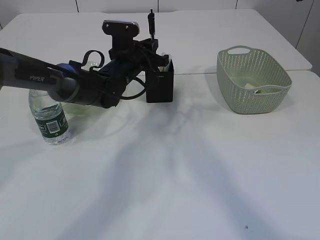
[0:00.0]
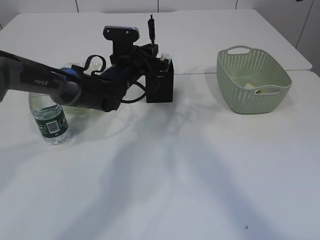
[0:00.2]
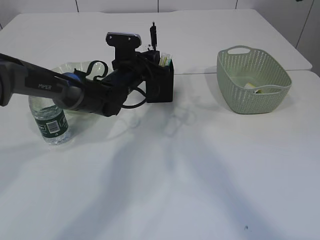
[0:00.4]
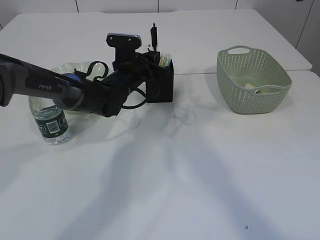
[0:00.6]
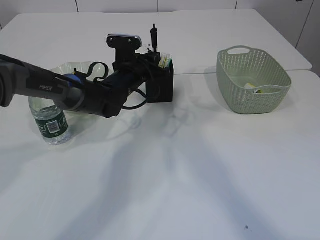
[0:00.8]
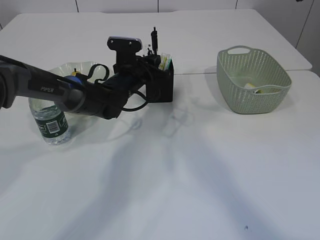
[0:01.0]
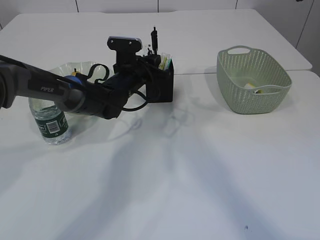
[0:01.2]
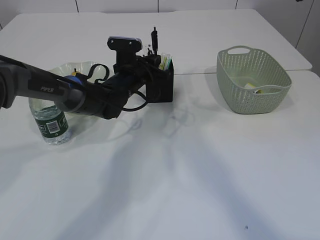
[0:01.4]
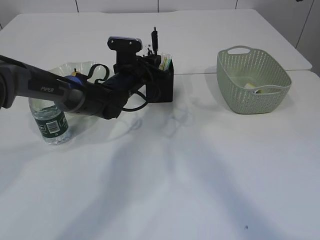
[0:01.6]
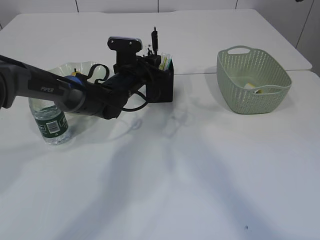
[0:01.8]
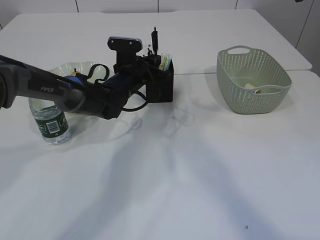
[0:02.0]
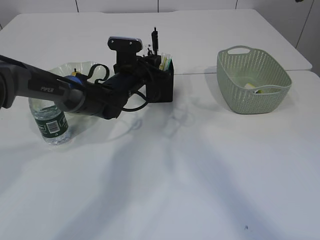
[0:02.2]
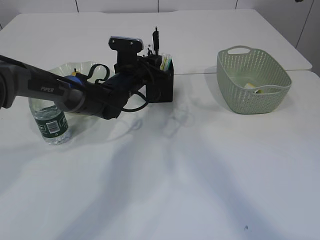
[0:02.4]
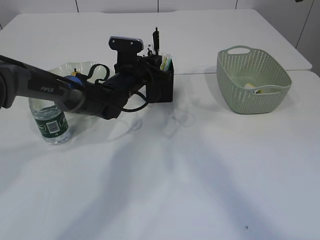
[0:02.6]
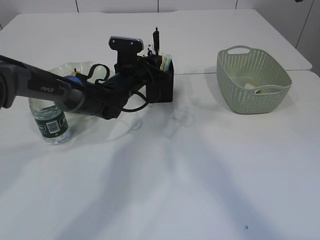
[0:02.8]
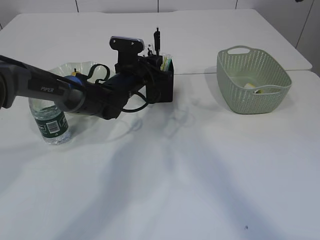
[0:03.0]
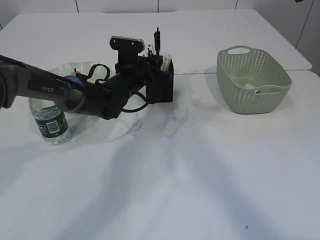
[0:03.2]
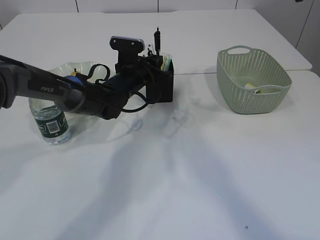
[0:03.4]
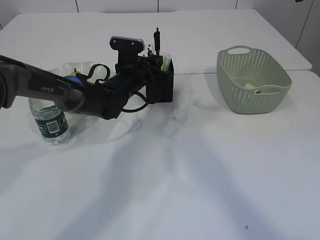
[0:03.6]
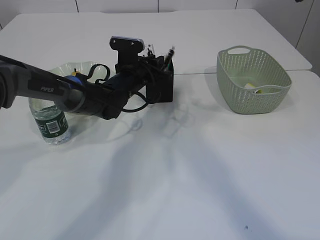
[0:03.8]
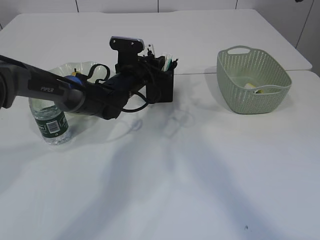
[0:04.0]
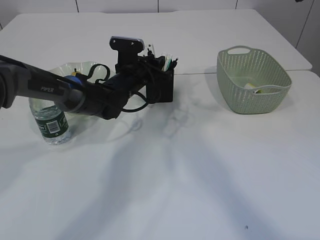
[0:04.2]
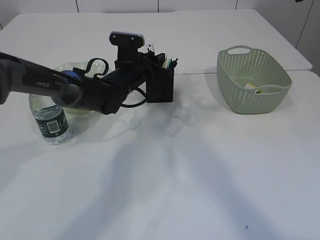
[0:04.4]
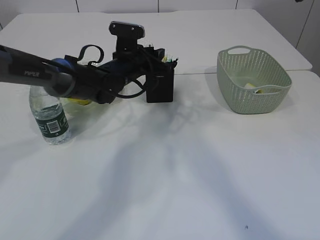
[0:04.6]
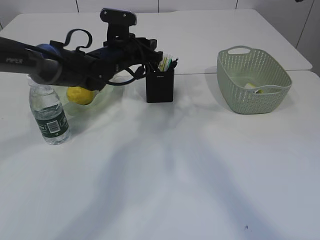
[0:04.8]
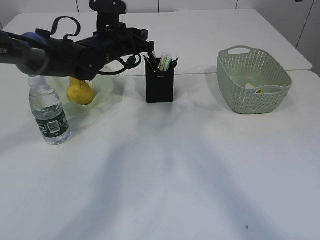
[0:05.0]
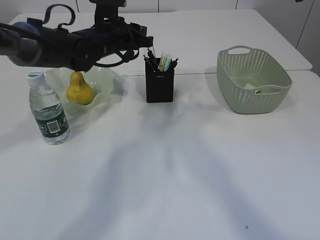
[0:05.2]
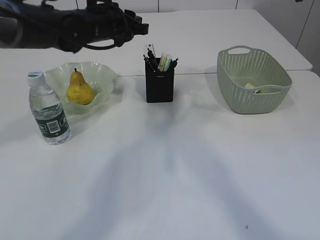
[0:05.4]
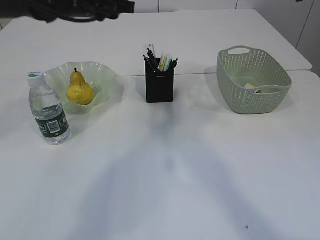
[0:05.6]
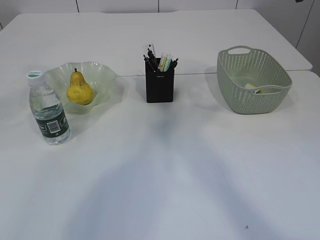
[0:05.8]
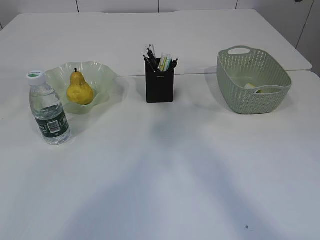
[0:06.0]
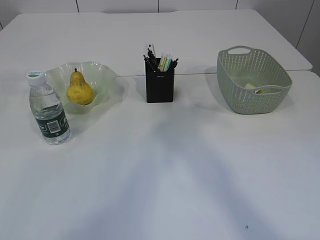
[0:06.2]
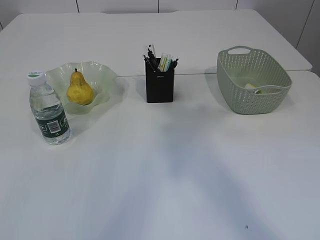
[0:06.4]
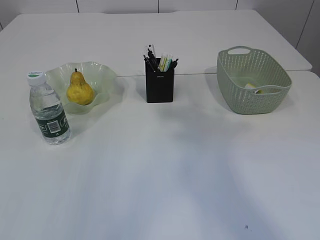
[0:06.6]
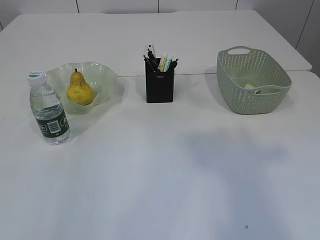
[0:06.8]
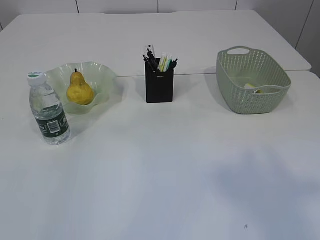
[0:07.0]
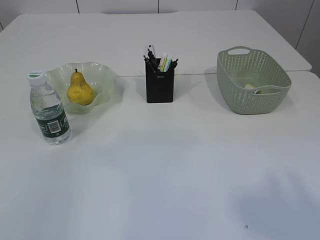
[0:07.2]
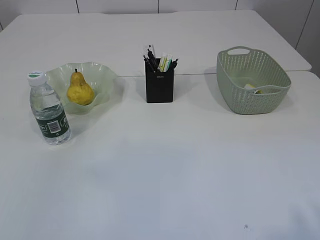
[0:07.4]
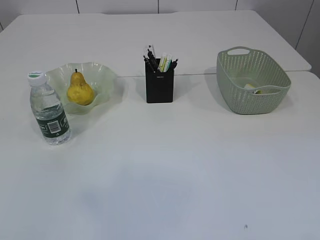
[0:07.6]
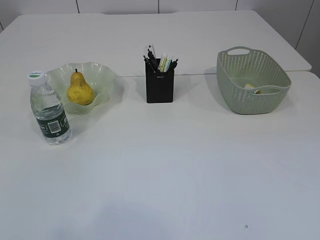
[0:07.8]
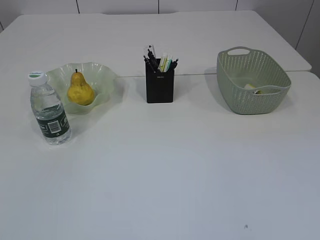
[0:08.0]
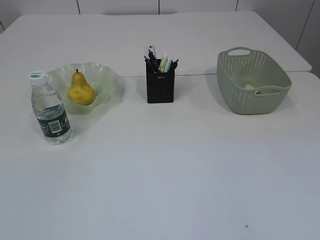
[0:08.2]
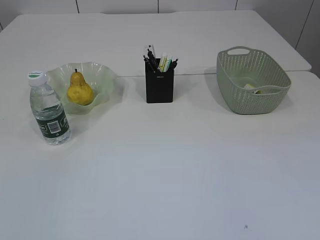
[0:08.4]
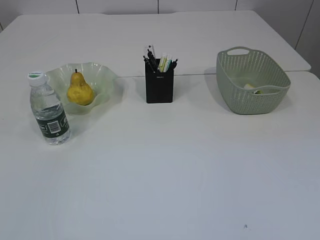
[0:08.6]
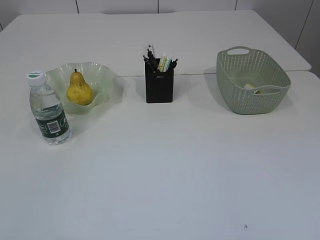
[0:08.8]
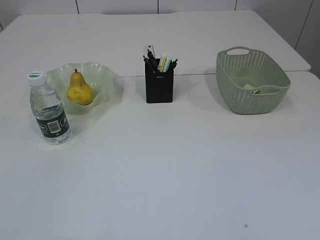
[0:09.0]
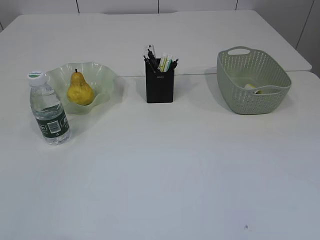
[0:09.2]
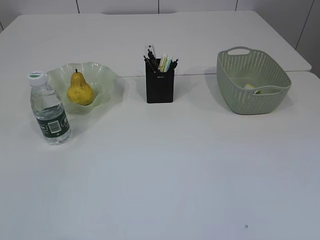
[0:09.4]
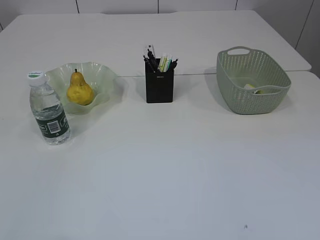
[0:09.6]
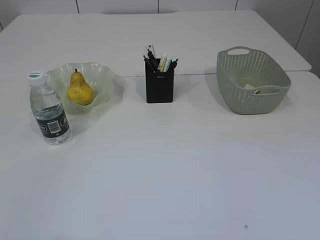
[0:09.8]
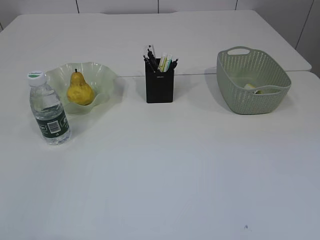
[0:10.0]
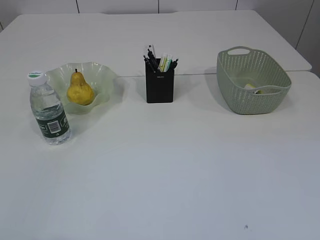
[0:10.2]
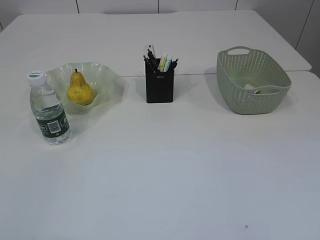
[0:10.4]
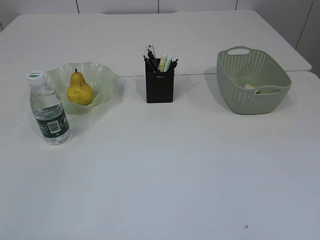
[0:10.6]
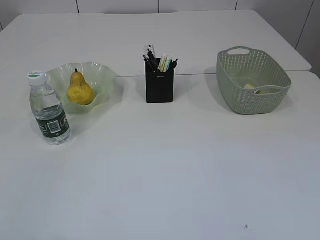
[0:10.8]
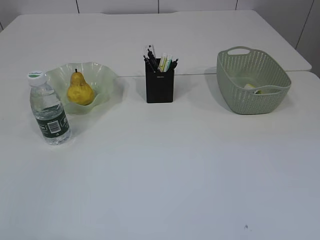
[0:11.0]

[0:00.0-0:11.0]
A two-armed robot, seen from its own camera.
Step, 0:00.0 to 0:05.2: Place the pen into the pen holder.
0:00.0 to 0:01.6: The grippers stay close to where they were, moving slightly.
0:01.6 to 0:03.2: Both grippers stay about where they are.
0:03.2 to 0:04.8: The left gripper heads upward, covering about 5 cm.
0:04.8 to 0:06.2: The left gripper shifts about 35 cm upward, backward and to the left.
0:06.2 to 0:07.8: The grippers both shift backward by some 35 cm.

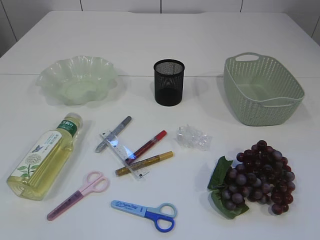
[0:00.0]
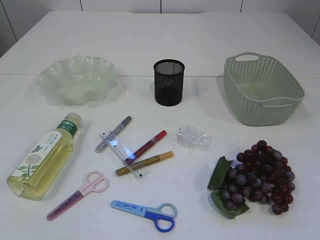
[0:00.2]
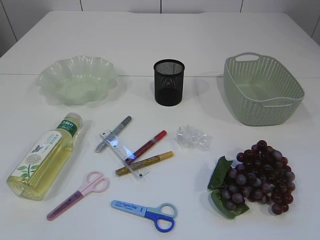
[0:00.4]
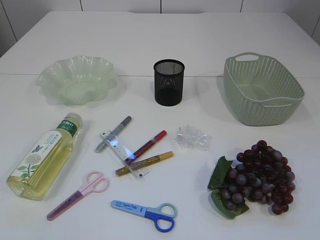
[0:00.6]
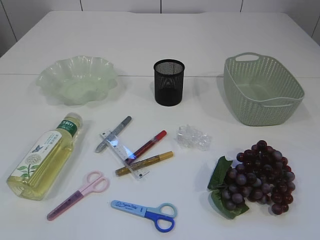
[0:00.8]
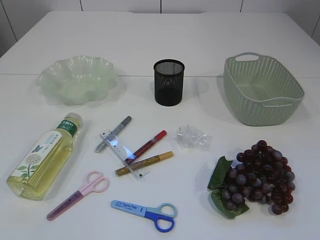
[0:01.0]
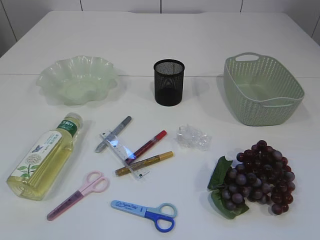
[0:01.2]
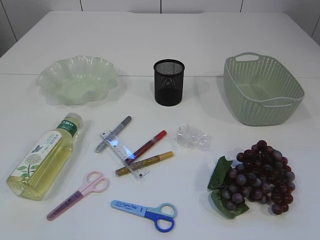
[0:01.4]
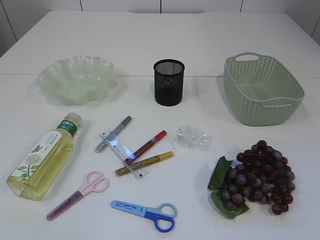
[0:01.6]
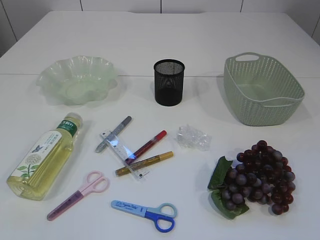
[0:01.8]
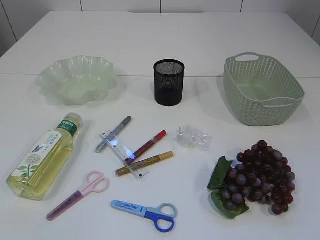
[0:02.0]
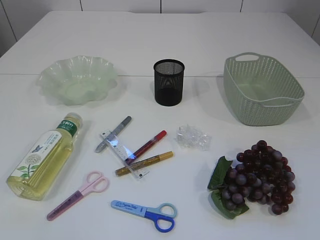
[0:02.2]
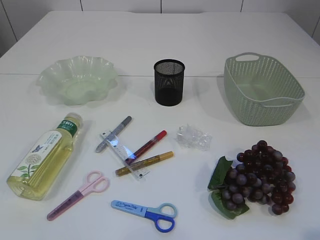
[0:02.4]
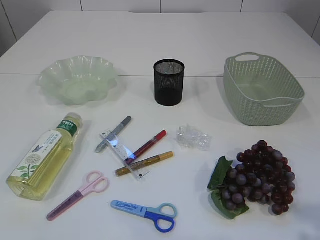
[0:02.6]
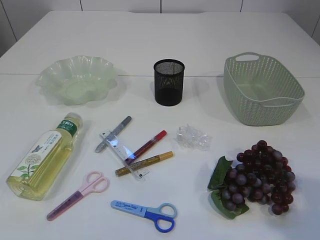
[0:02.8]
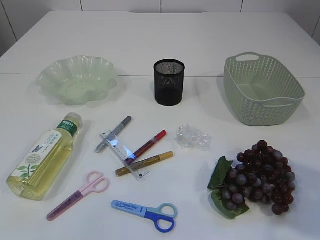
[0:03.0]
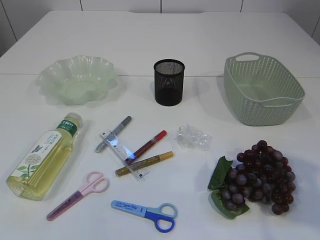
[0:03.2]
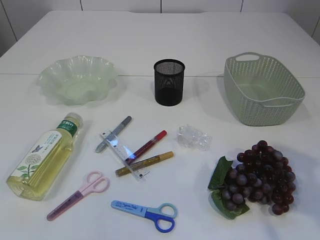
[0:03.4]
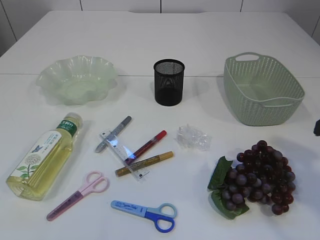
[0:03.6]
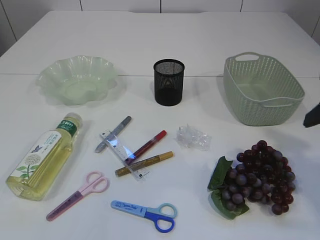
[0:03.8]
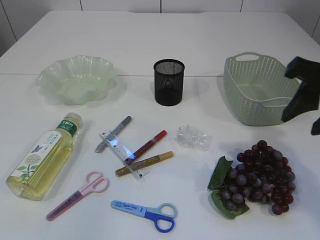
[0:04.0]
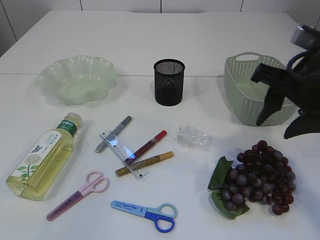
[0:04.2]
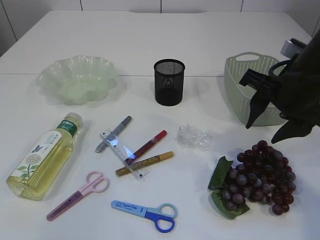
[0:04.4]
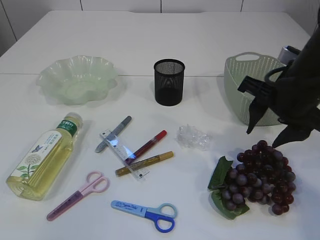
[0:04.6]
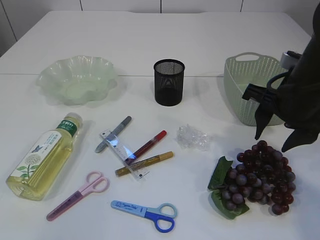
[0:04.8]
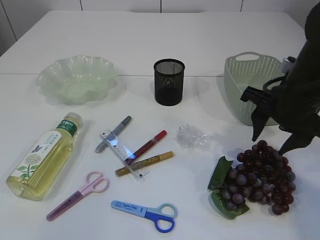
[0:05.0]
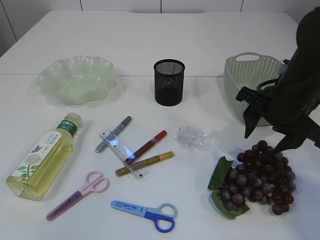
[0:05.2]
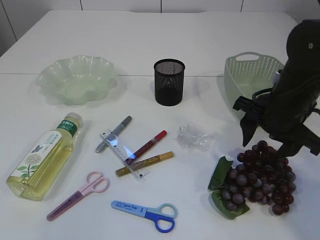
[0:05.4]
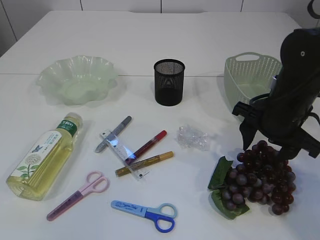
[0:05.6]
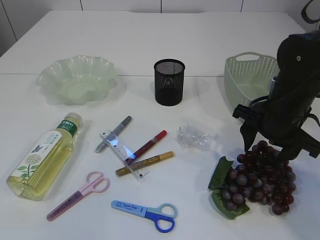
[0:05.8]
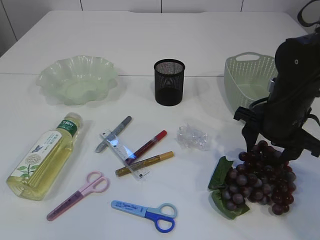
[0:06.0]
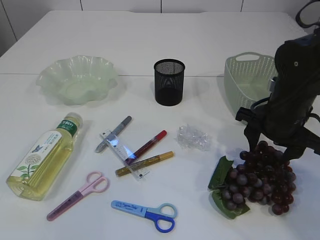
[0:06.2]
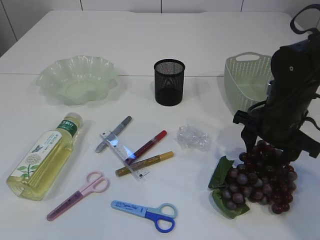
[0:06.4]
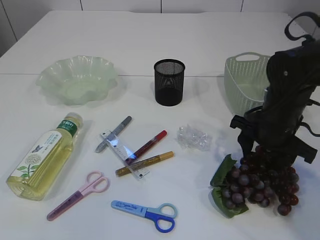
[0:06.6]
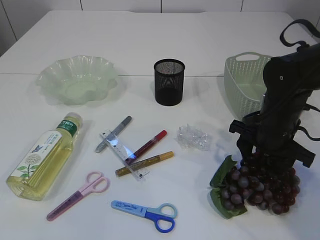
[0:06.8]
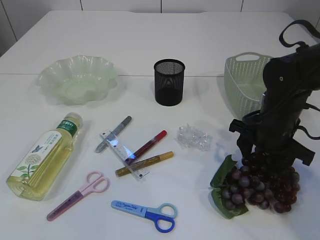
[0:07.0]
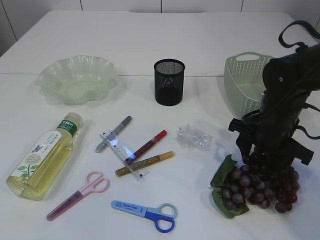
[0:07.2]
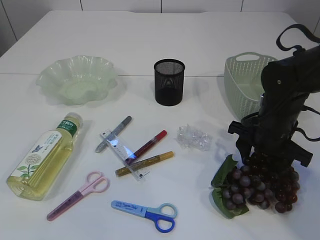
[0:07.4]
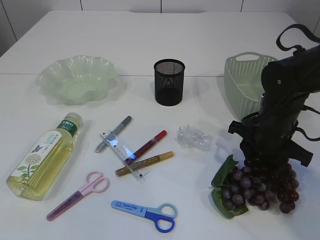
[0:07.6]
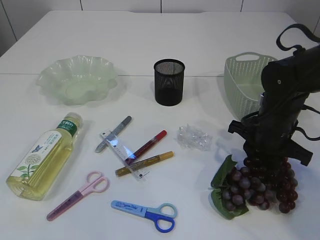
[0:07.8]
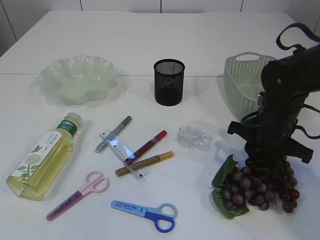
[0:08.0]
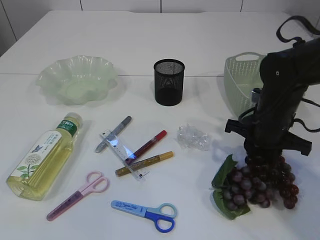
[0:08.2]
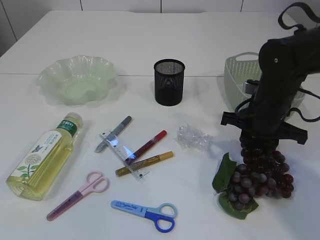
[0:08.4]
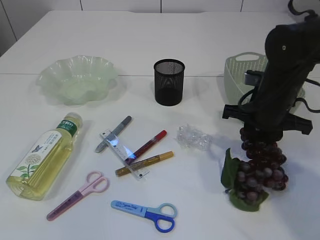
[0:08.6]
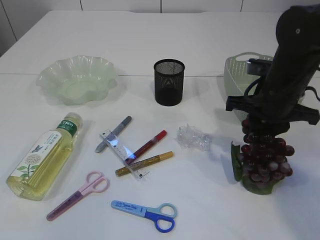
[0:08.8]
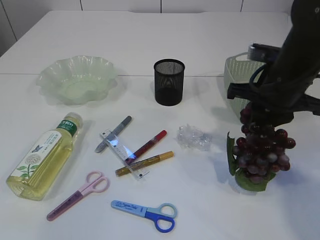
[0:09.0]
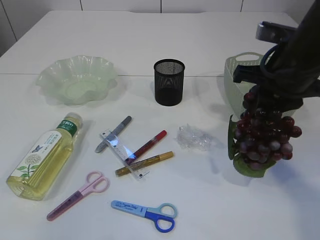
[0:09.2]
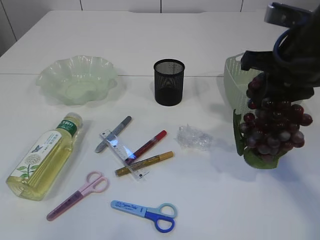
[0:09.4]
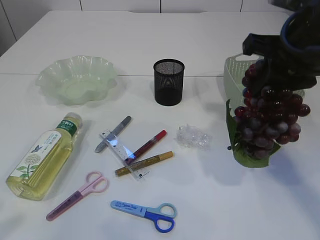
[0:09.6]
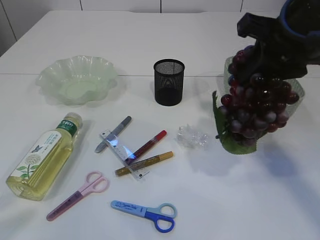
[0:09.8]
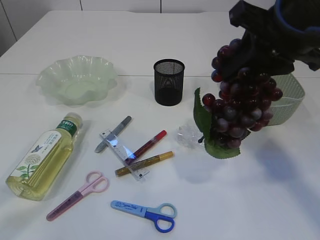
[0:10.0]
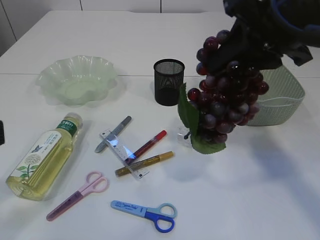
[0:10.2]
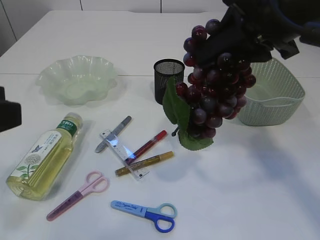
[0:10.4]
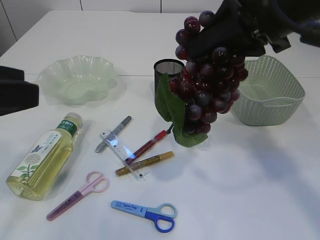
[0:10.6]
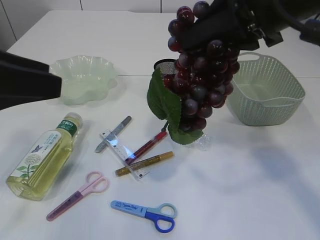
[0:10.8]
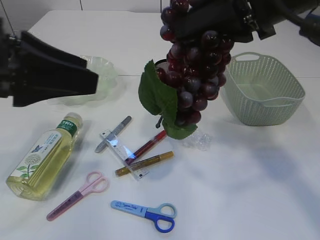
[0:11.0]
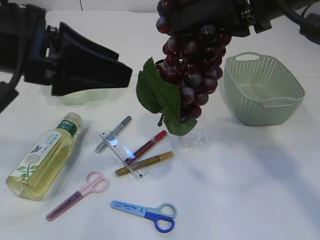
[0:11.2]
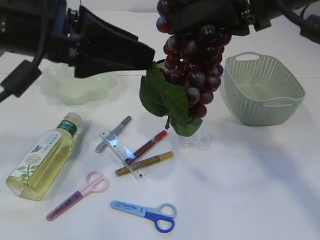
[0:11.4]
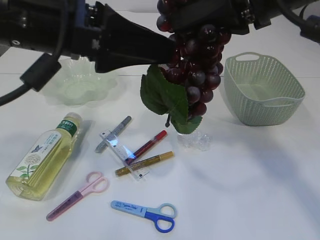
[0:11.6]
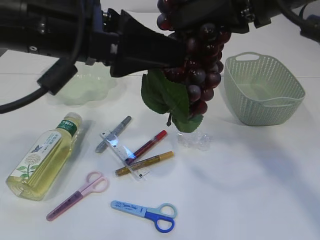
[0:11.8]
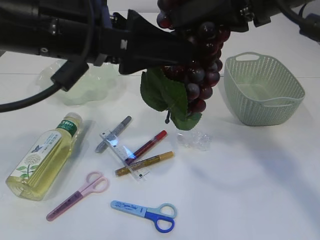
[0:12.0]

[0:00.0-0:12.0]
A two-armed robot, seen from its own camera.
Step, 0:00.0 to 0:09.2: Pick up the grapes.
0:01.6 to 0:03.0: The right gripper goes roughly 15 cm forward and upward.
0:03.0 to 0:04.4: The right gripper heads forward, covering approximately 20 cm.
0:04.4 to 0:06.0: The right gripper is displaced downward by roughly 10 cm.
0:06.0 to 0:07.6: The grippers stay close to where they were, moving slightly.
0:07.6 to 0:09.0: The right gripper moves upward, some 10 cm, and closes up.
0:09.0 to 0:10.4: The right gripper is displaced upward and backward by approximately 15 cm, while the left gripper shifts roughly 15 cm forward.
0:10.4 to 0:12.0: The left gripper is displaced to the right and forward by approximately 20 cm.
